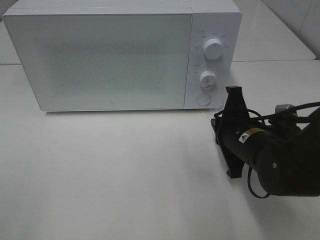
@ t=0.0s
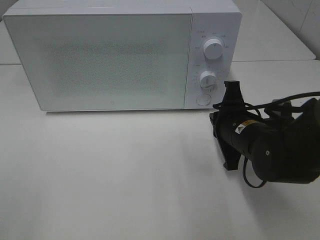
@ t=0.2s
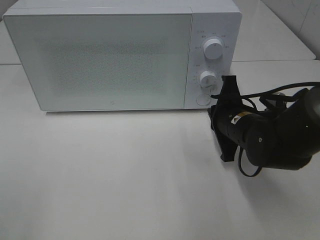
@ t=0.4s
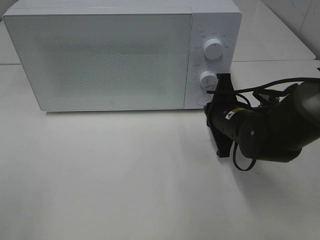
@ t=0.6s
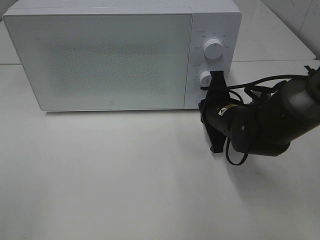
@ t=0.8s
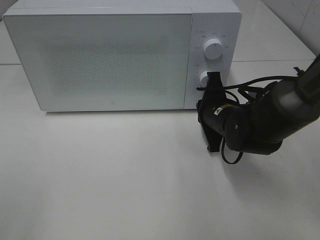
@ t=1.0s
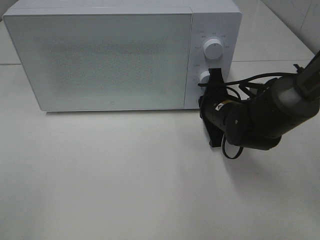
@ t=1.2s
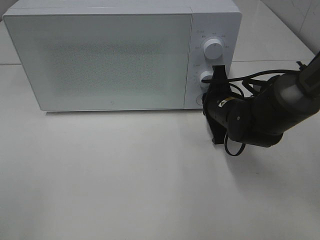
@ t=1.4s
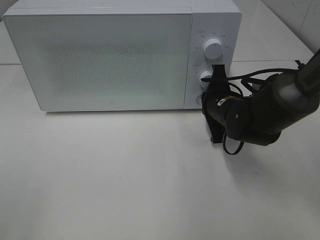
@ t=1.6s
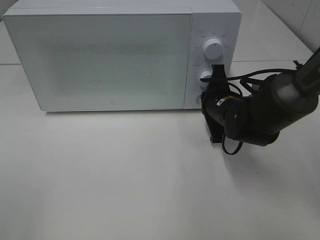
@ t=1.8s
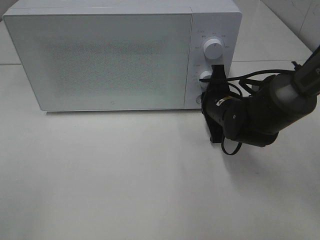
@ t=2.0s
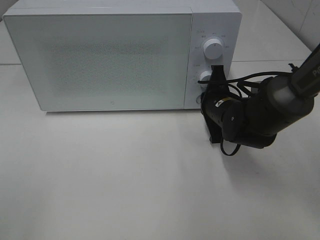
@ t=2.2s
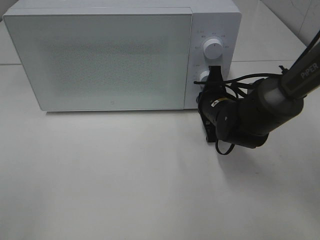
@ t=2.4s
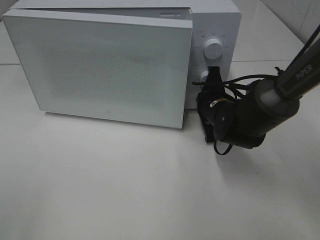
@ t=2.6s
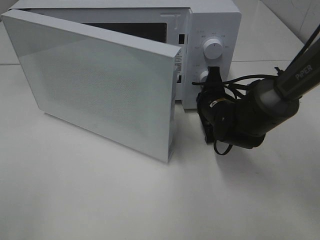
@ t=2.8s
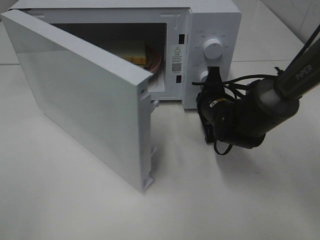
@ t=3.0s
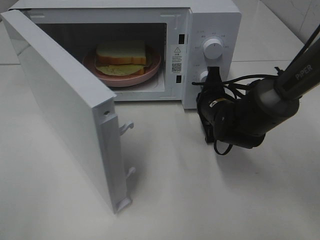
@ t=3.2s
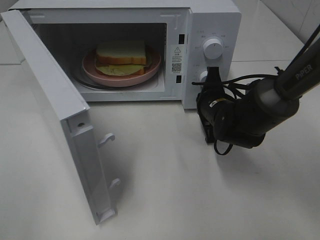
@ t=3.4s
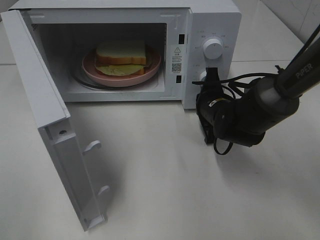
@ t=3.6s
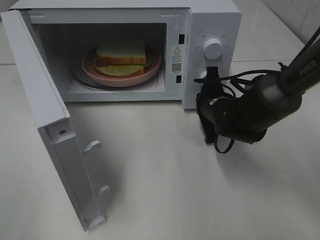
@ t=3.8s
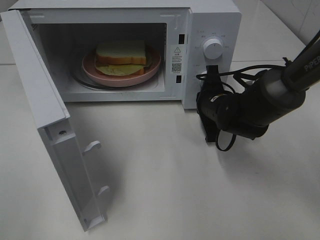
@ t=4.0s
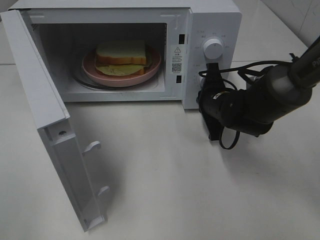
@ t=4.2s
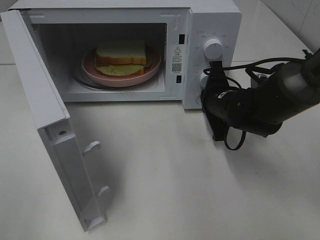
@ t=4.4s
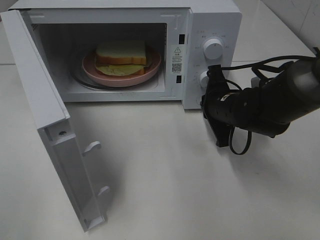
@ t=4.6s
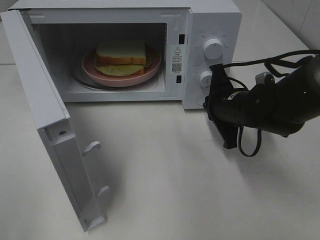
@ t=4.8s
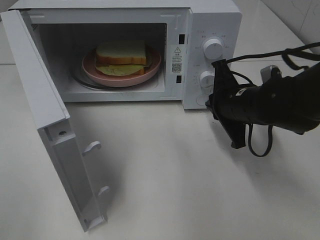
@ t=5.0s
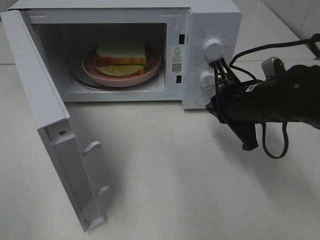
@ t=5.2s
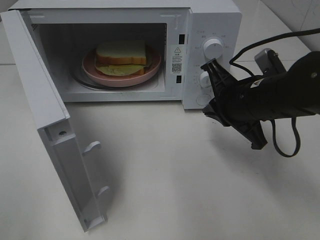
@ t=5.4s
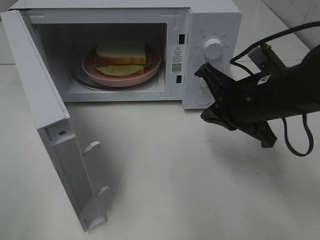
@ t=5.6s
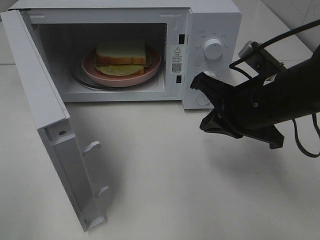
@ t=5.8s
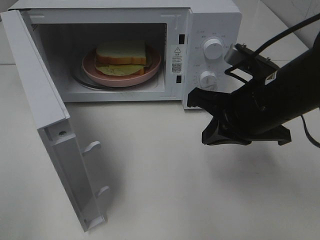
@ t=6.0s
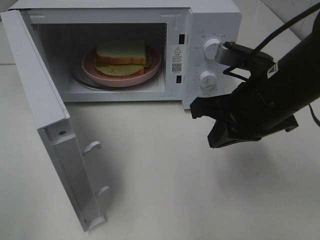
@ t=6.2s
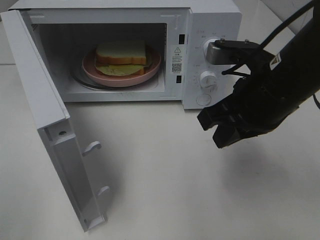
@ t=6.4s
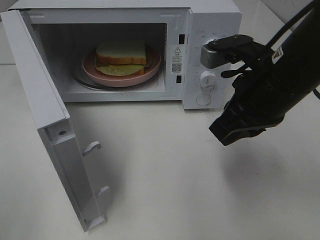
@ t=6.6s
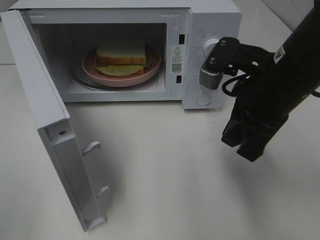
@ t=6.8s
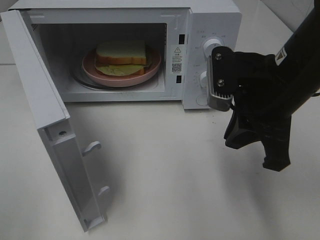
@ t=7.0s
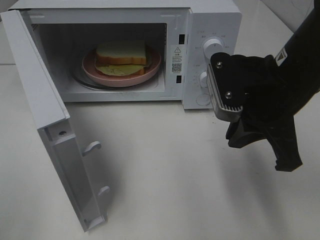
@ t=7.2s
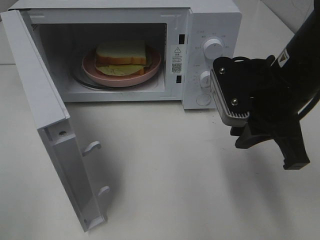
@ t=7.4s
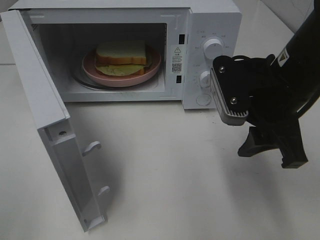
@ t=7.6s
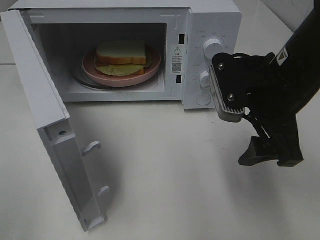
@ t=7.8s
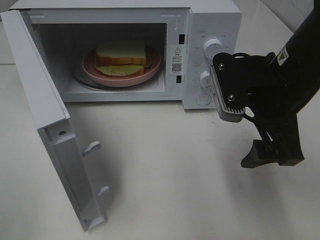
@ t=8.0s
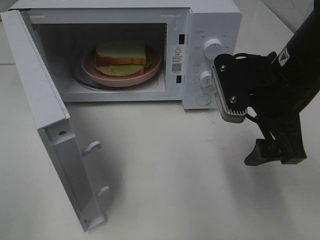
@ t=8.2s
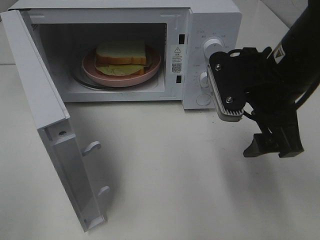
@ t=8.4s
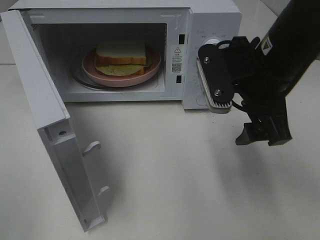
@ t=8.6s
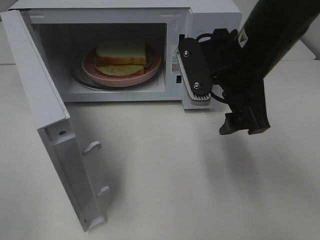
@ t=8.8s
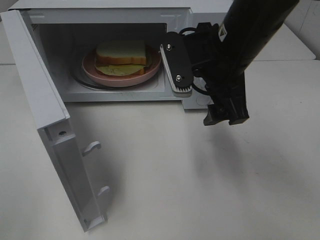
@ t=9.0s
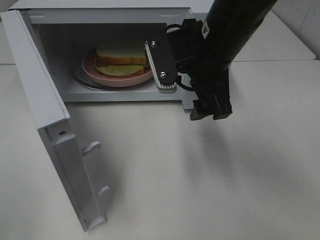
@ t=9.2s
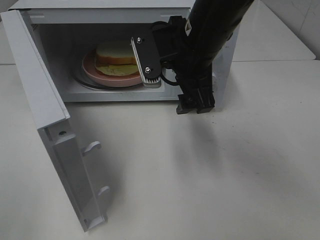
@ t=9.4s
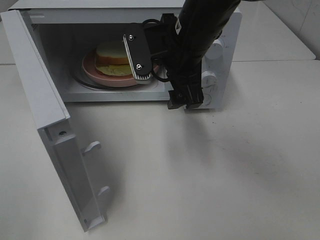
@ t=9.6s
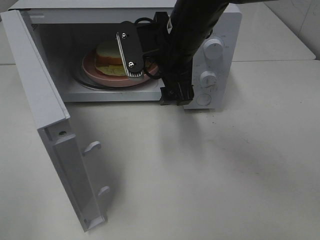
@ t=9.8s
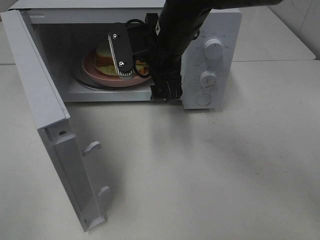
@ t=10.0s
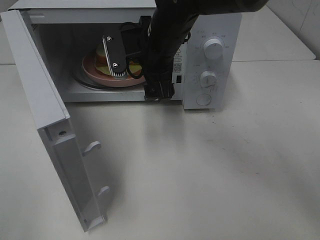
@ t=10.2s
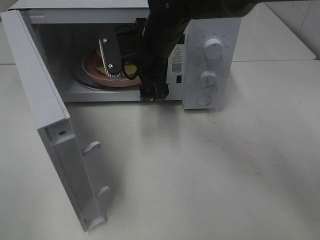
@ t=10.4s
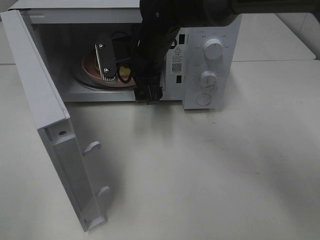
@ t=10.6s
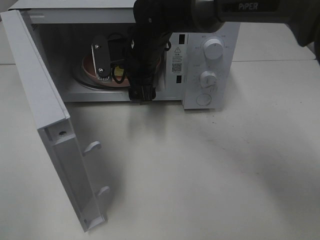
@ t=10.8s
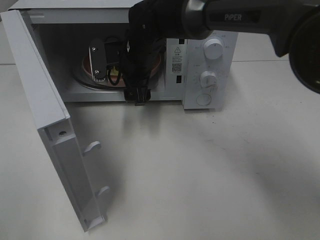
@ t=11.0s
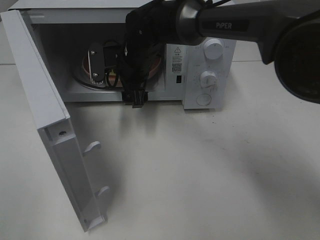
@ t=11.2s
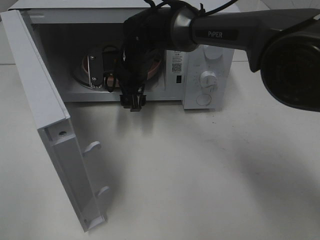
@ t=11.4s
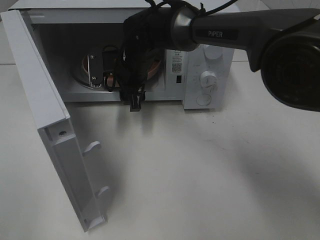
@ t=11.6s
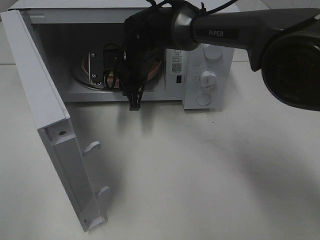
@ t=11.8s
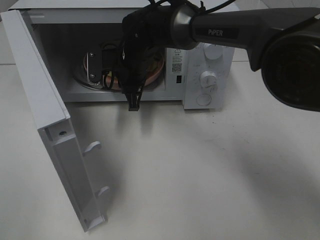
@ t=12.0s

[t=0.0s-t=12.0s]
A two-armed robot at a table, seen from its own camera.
Task of the whole recording: Heat Sandwich.
Step, t=0.0s to t=4.6s: Right hand: press the switch.
t=0.0s to t=1.6s: The right gripper heads forward, covering some 10 cm.
t=4.4s to t=6.0s: The right gripper shifts approximately 15 cm backward and upward.
t=6.0s to t=7.6s: The right gripper opens its fingers.
t=7.6s to t=9.0s: The right gripper goes roughly 5 cm to the left, and opens.
t=9.0s to t=10.4s: The right gripper shifts roughly 15 cm forward and to the left.
t=10.4s to t=12.0s: The right gripper goes about 5 cm downward, and closes its fingers.

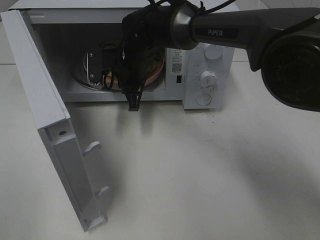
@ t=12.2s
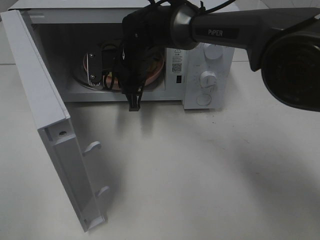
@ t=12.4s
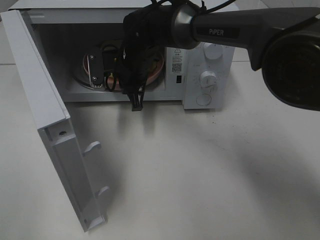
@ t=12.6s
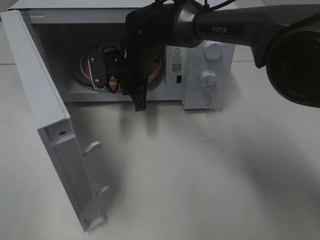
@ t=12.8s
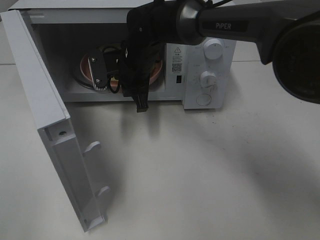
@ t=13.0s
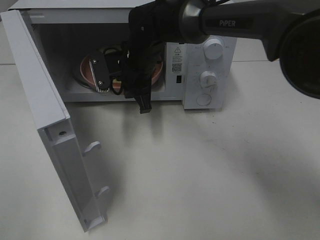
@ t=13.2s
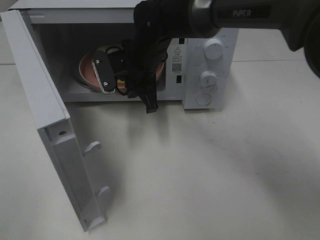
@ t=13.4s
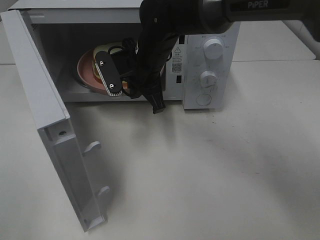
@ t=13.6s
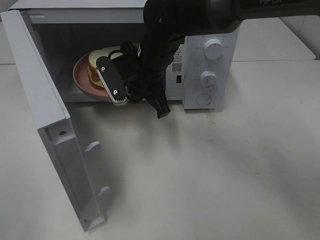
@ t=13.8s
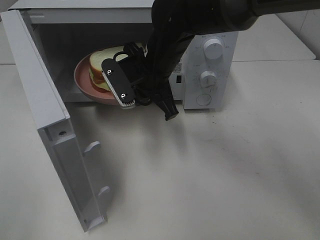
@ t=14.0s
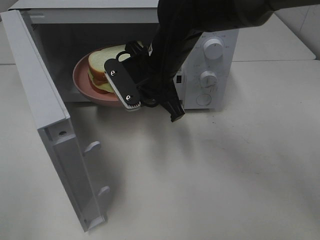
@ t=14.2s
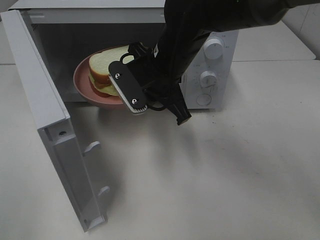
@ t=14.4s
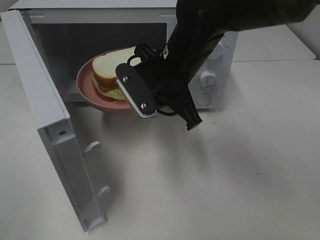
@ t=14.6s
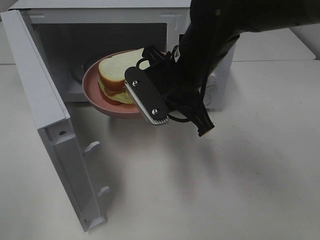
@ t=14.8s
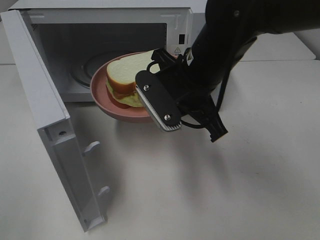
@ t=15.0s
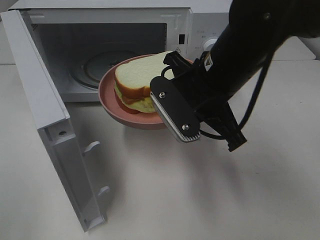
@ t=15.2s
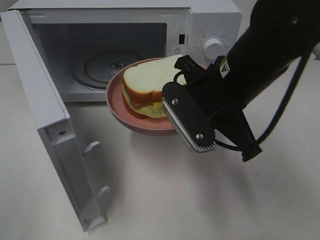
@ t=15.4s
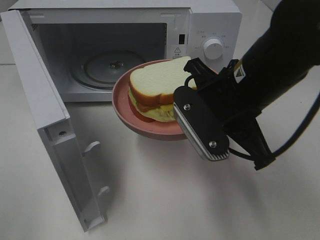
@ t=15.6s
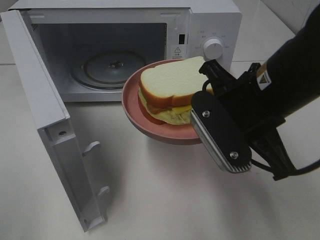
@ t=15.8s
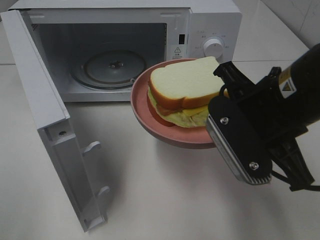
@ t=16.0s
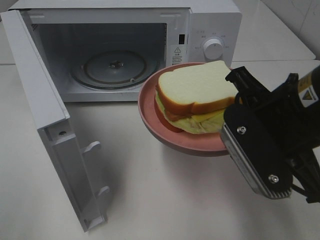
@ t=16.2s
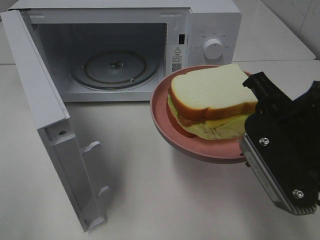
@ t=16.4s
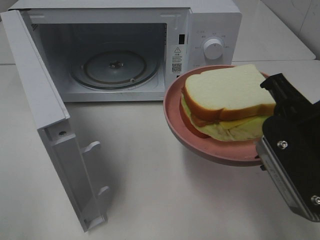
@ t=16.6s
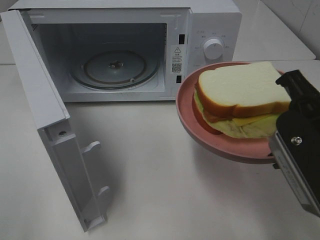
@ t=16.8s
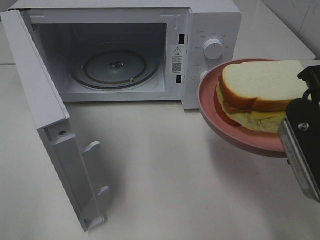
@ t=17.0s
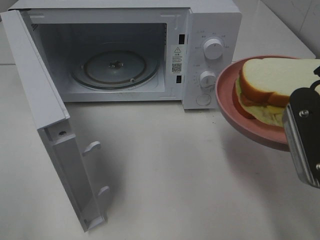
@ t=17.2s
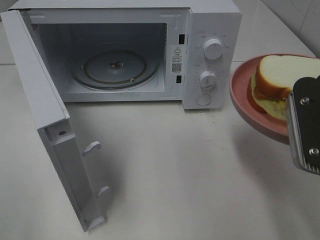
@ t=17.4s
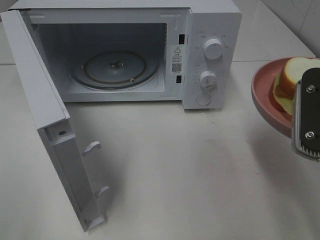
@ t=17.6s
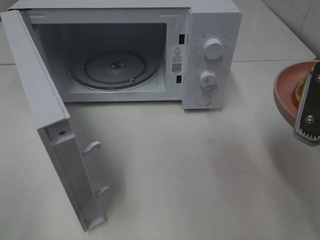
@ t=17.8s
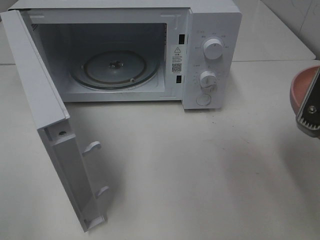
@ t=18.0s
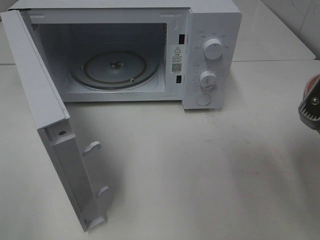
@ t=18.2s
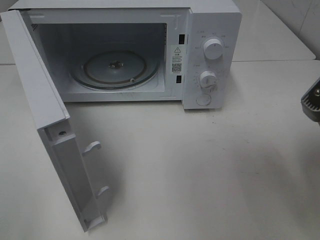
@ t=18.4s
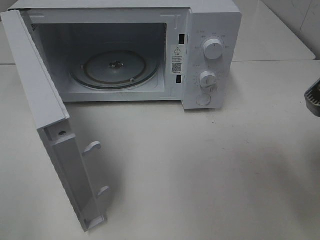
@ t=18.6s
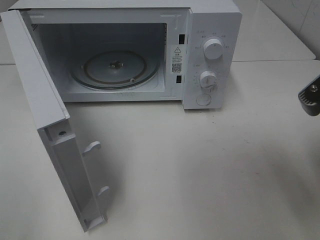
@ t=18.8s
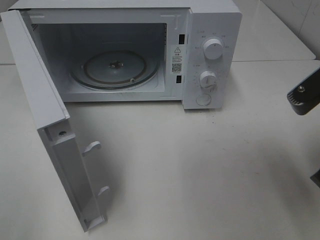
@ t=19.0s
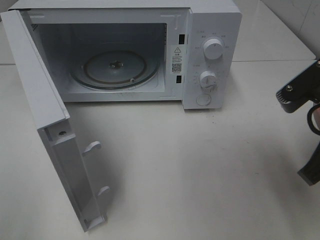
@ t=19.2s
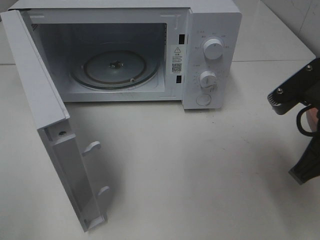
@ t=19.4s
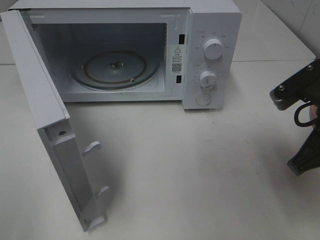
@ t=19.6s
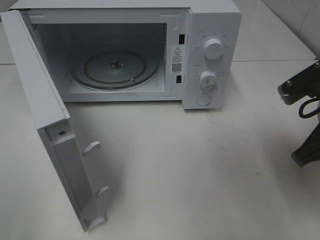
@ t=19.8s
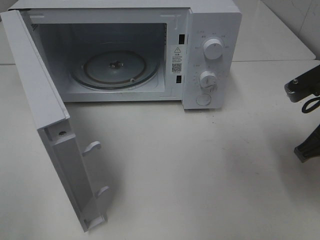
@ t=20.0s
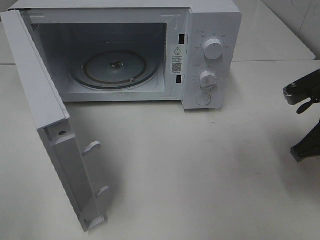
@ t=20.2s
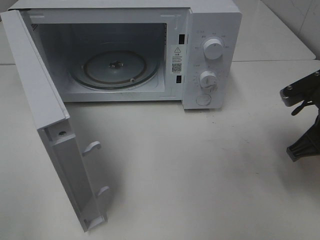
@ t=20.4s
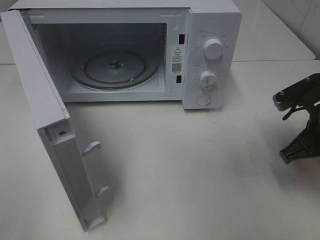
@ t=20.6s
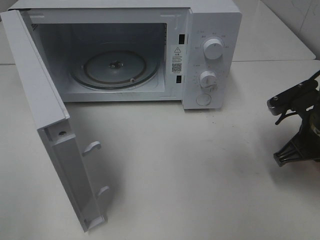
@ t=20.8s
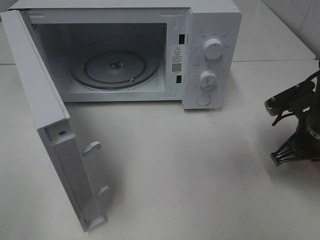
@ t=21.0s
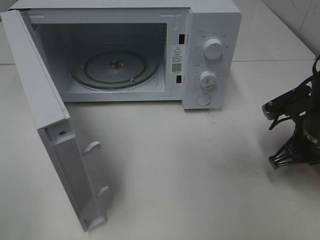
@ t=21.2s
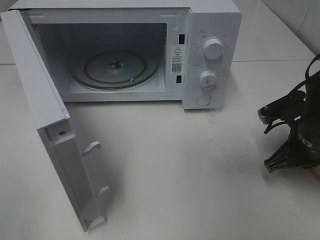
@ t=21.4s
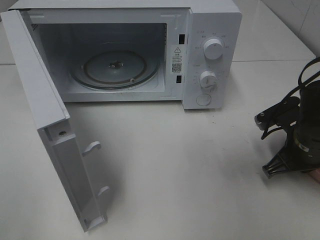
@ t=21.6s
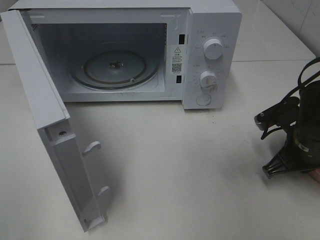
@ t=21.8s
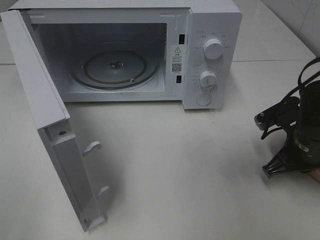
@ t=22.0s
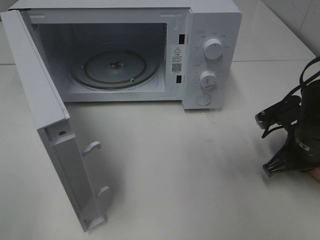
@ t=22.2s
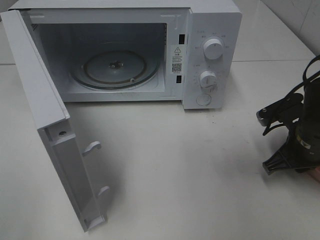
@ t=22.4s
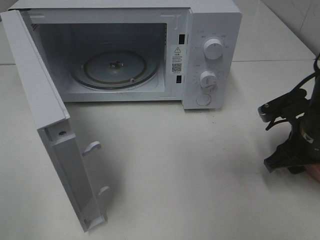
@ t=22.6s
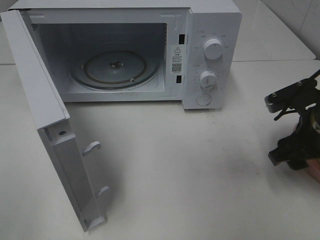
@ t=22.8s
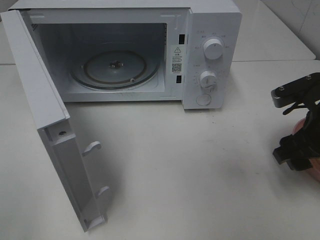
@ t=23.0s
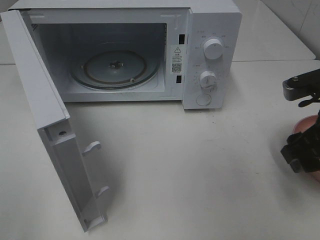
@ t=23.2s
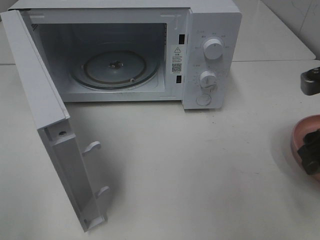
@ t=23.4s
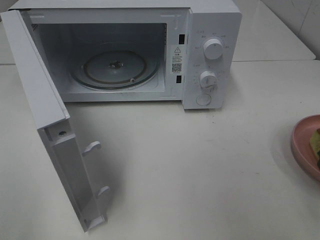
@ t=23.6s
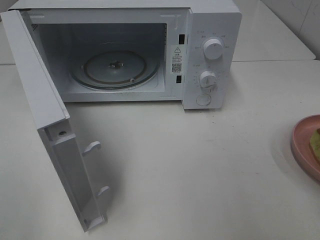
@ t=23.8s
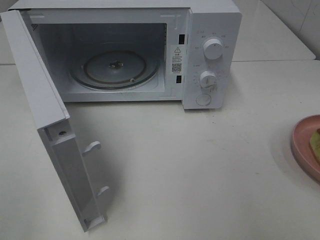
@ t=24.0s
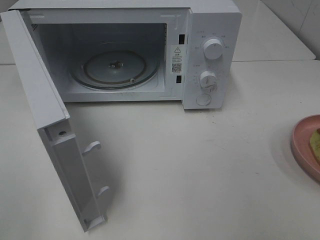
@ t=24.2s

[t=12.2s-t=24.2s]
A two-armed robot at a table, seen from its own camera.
Task of the whole recording: Heat Sandwich.
Step, t=12.8s to t=23.0s: Right hand: place the plate on the table.
t=12.2s to t=13.8s: The right gripper moves backward, roughly 5 cm.
t=13.8s to t=15.2s: The right gripper travels backward and to the right by some 15 cm.
t=15.2s to t=16.6s: The right gripper travels backward and to the right by roughly 15 cm.
t=18.2s to t=19.8s: The right gripper heads forward and downward, covering approximately 10 cm.
t=19.8s to t=21.2s: The right gripper shifts some 10 cm downward.
t=21.2s to t=22.6s: The right gripper opens its fingers.
t=22.6s to t=24.2s: The right gripper shifts approximately 25 cm backward and upward.
